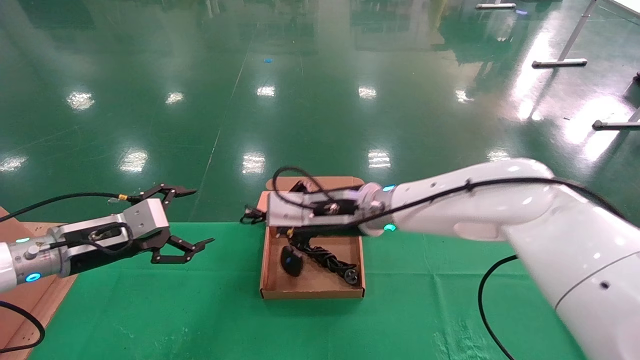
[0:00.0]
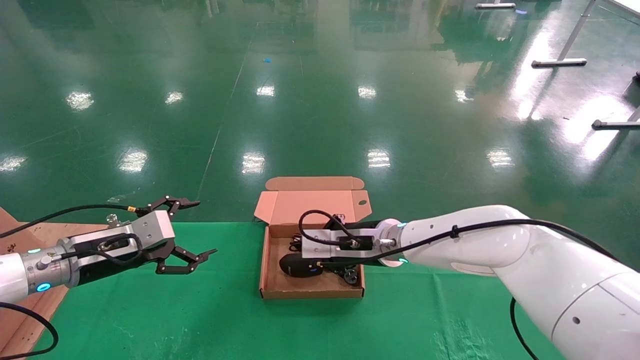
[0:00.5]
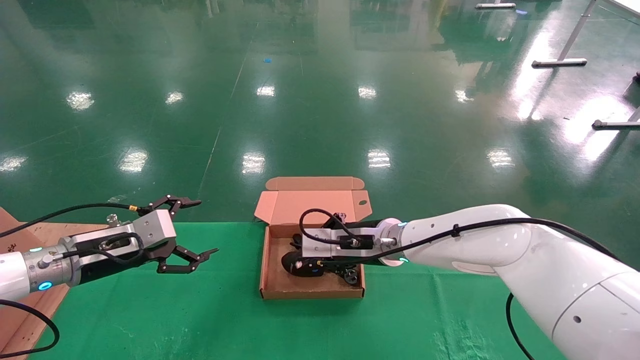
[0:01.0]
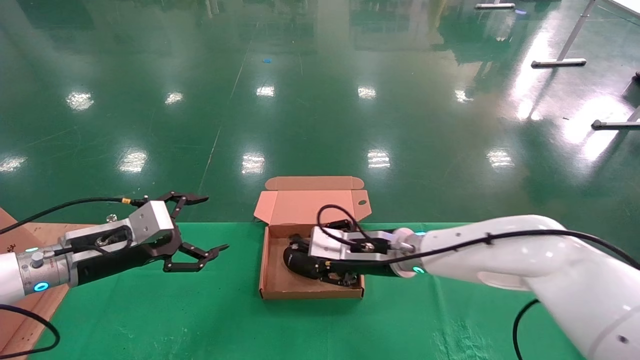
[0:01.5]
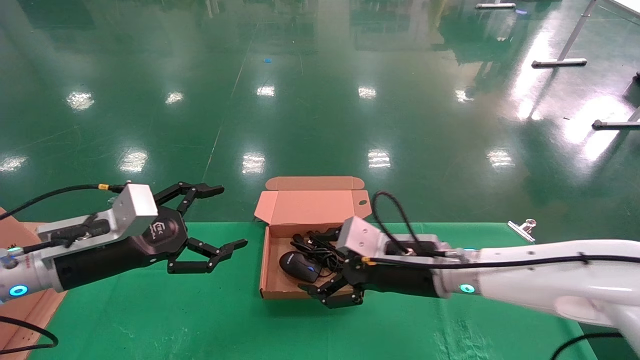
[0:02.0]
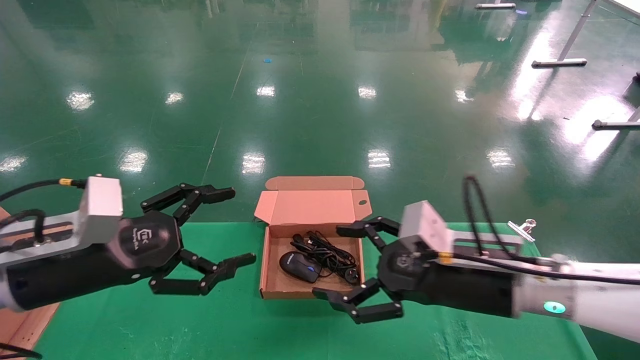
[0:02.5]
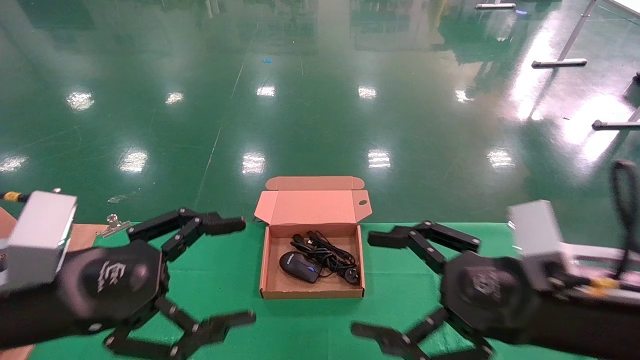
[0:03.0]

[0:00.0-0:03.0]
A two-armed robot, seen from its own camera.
Step, 0:00.0 to 0:02.0: Place the mouse and power cord into the box.
0:00.0 to 0:01.5: The right gripper goes approximately 10 cm downward, and opens its fingers.
0:01.5 to 0:03.0: The right gripper shifts about 25 cm backward and to the right, and opens. The left gripper travels backward by approximately 15 cm.
